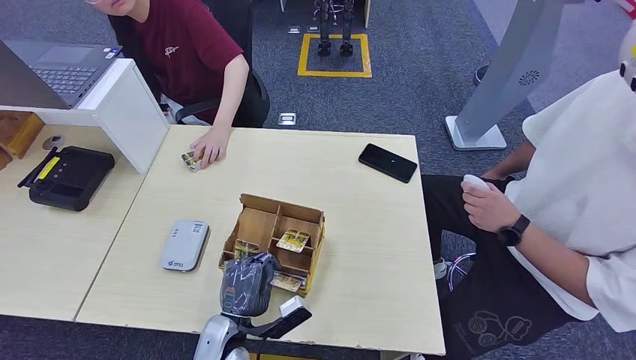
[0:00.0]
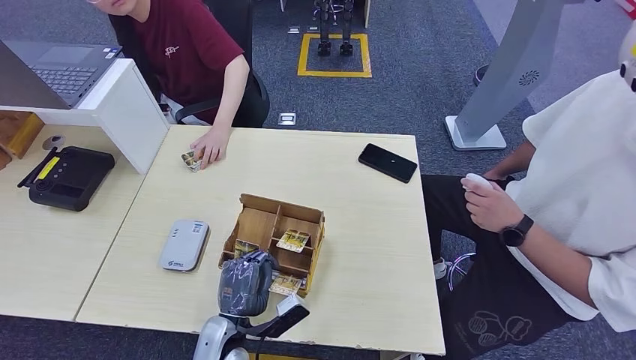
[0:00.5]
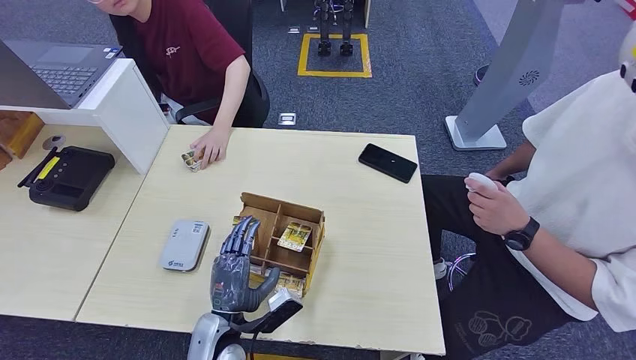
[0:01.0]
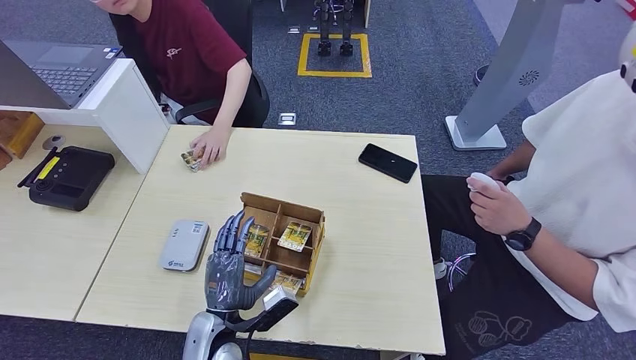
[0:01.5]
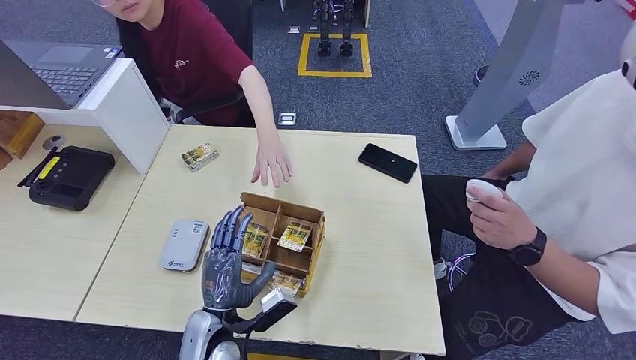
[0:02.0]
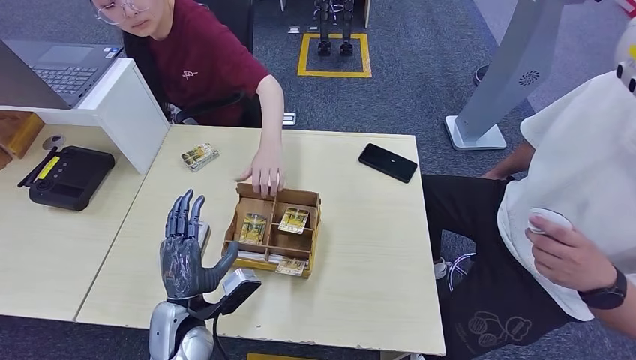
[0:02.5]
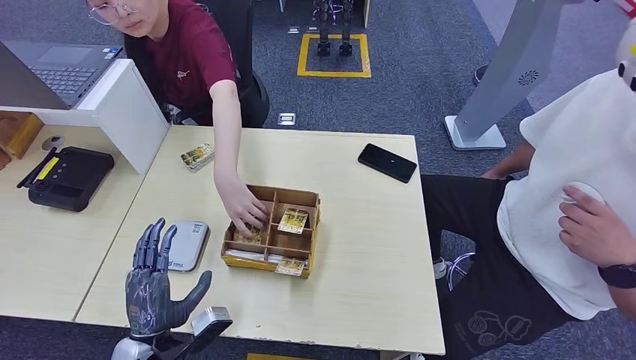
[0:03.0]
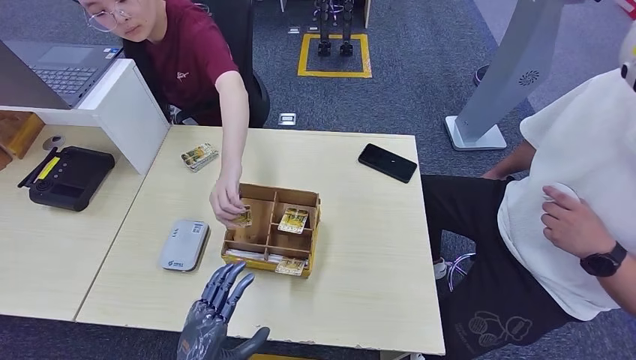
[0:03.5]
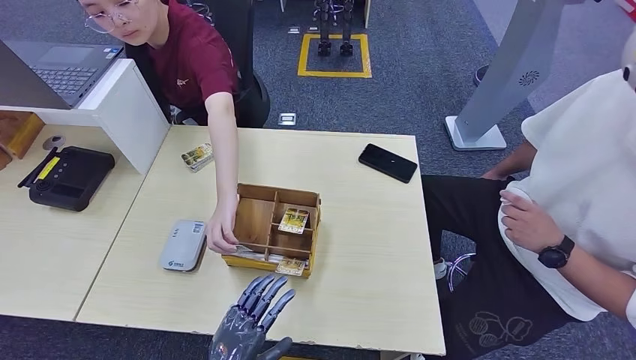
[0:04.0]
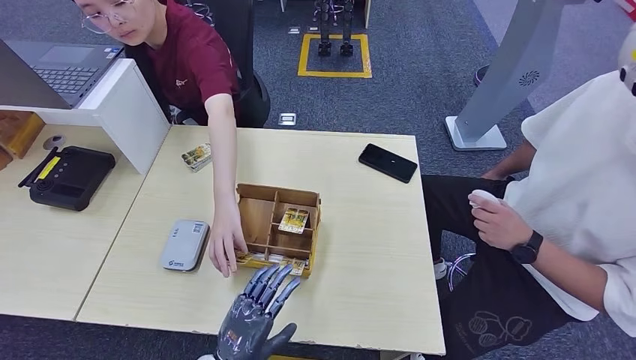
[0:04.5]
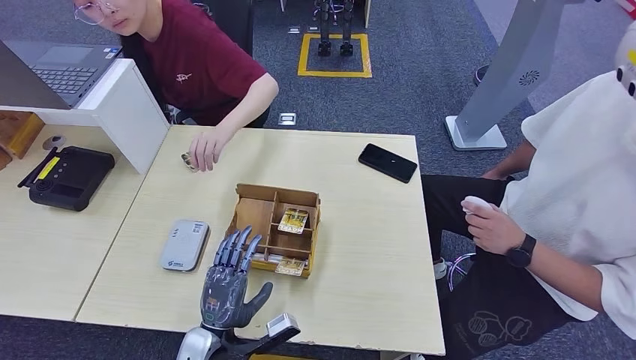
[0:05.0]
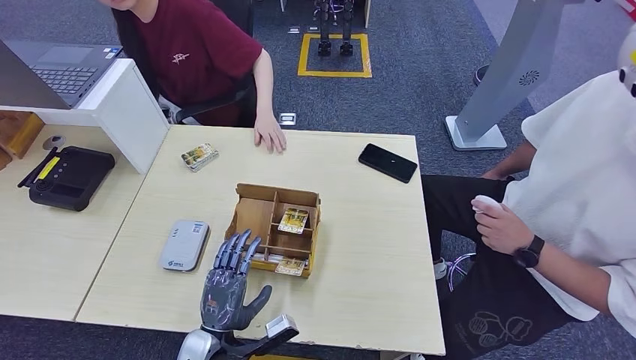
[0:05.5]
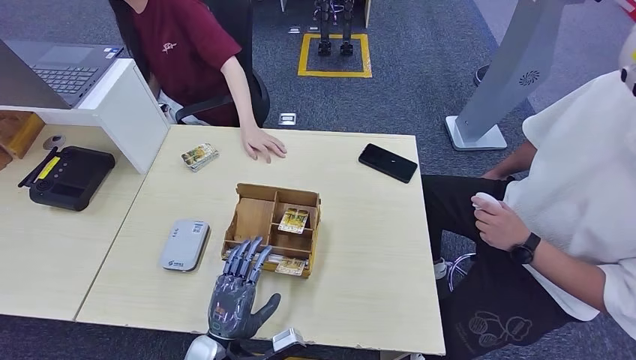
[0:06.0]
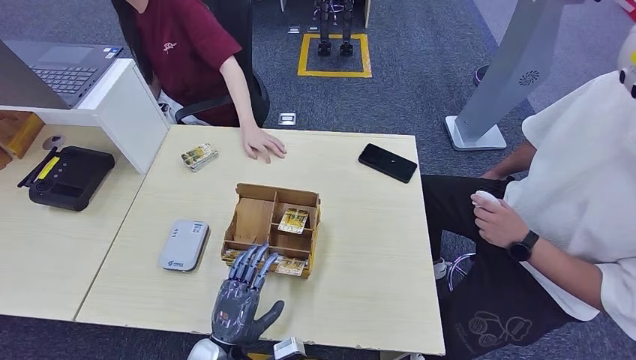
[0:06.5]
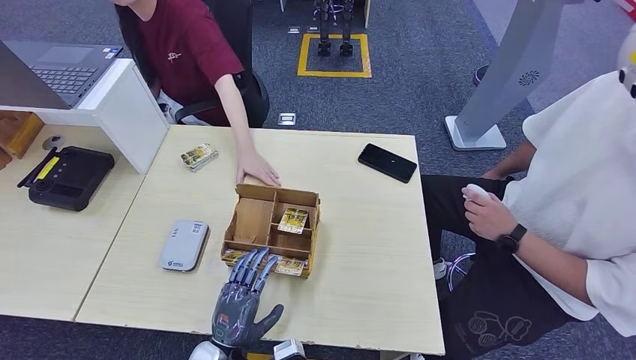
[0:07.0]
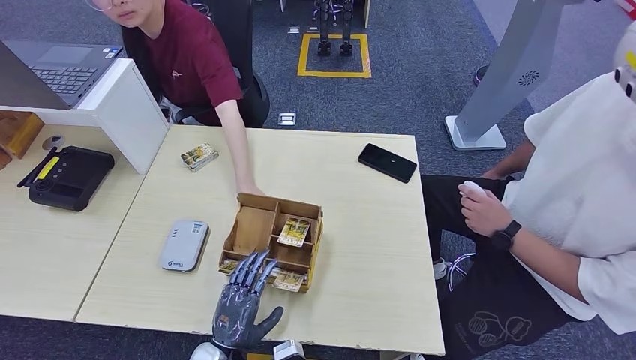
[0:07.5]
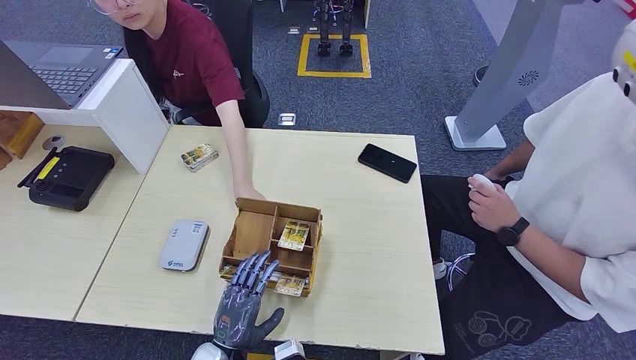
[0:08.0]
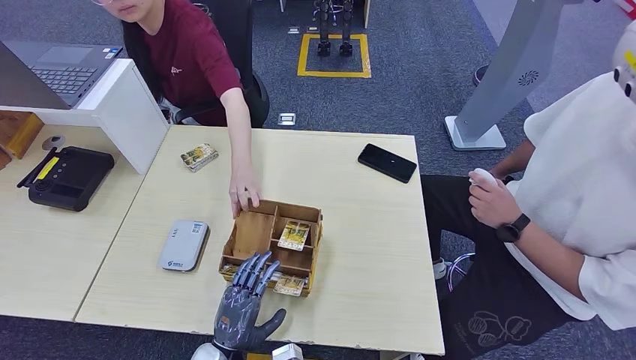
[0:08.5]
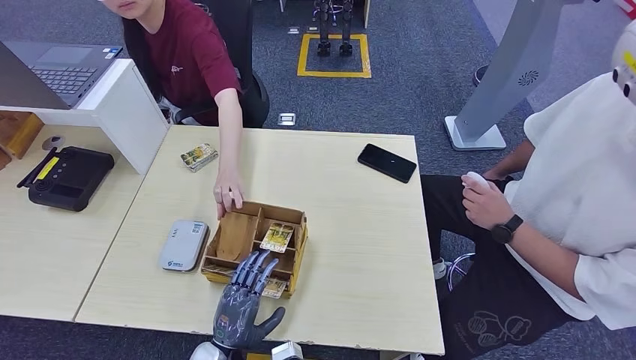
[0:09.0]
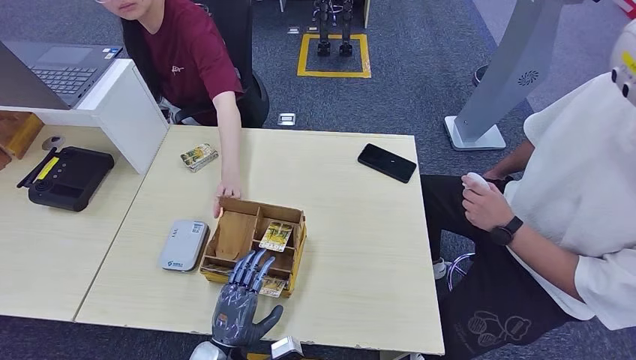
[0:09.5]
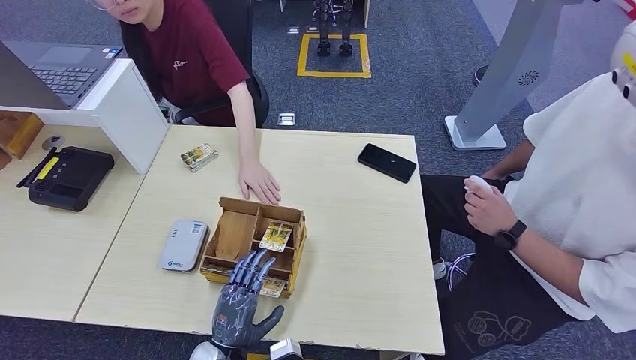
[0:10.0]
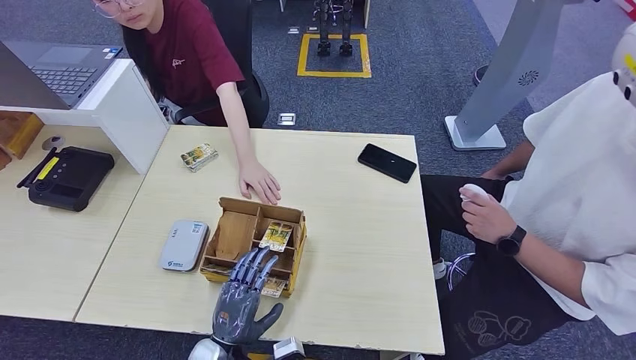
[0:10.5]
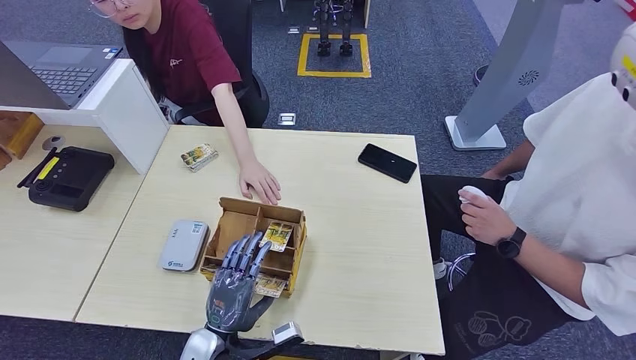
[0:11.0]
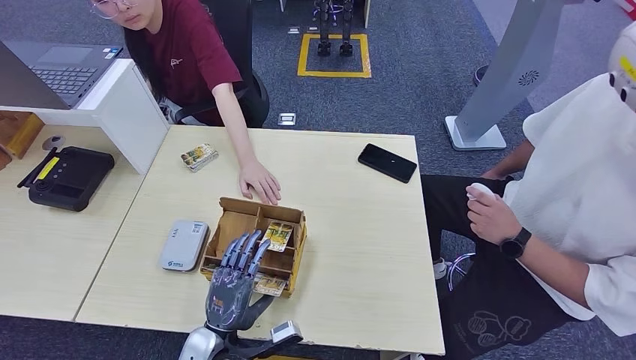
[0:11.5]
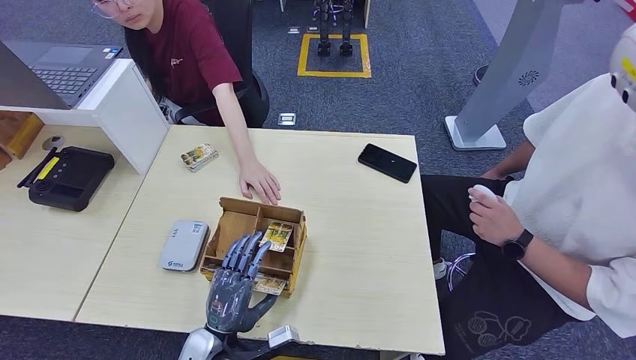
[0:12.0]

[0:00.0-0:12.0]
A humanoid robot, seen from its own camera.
0:00.0 to 0:02.0: The hands make only small movements.
0:02.0 to 0:04.0: The left hand travels backward by some 10 cm.
0:04.0 to 0:06.0: The left hand heads forward, covering some 5 cm.
0:06.0 to 0:08.0: The hands make only small movements.
0:08.0 to 0:10.0: The two hands keep their place.
0:10.0 to 0:12.0: The hands make only small movements.

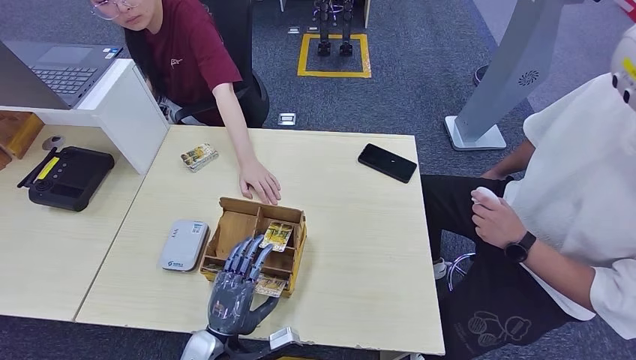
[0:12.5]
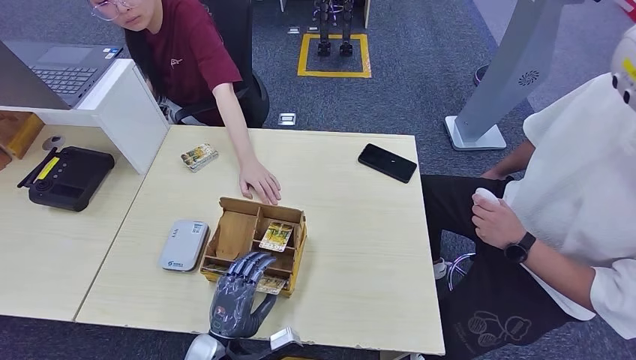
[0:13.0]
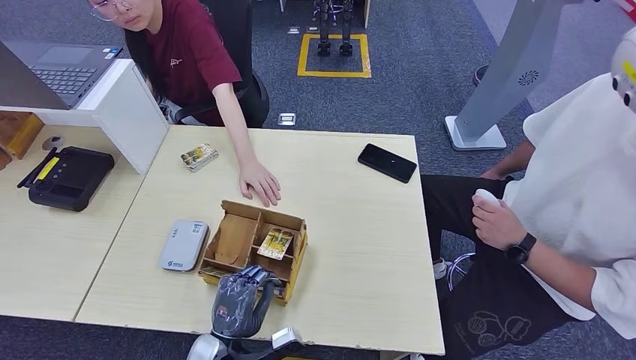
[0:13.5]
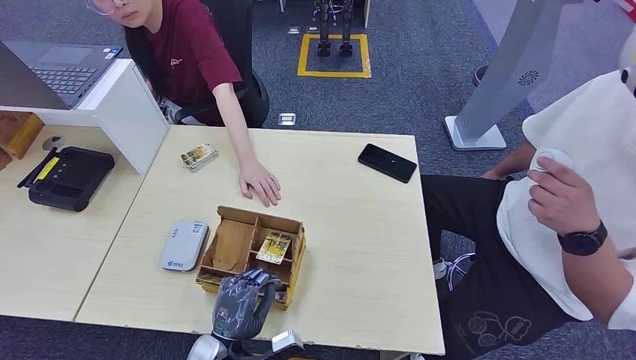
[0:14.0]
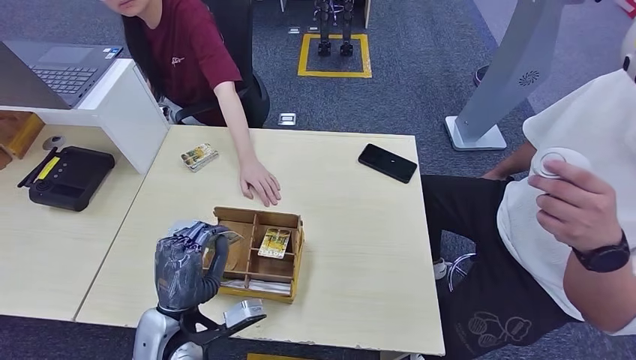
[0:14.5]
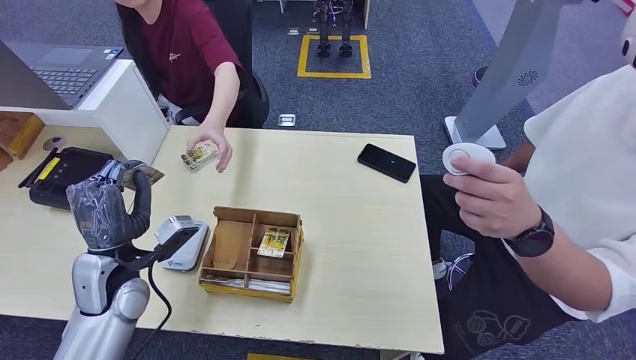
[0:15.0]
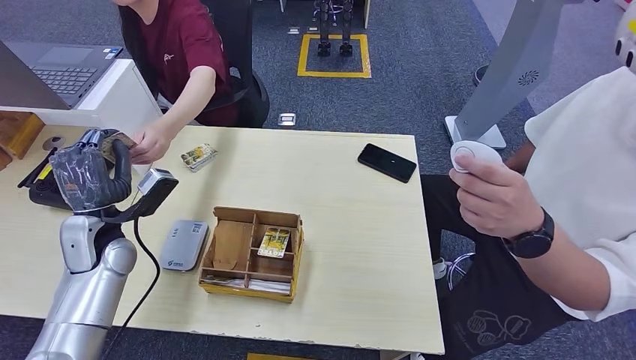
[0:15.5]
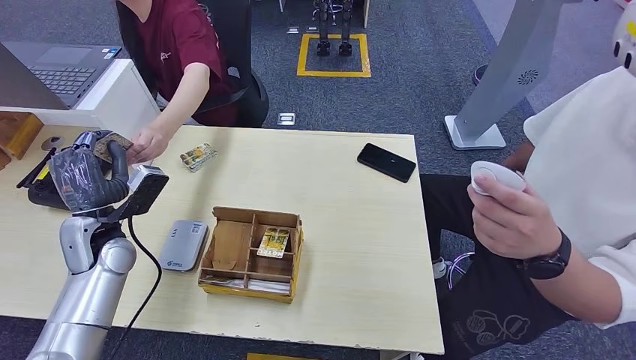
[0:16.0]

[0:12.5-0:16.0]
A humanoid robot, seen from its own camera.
Step, 0:12.5 to 0:14.5: Pick up the room key from the key card box.
Step, 0:15.0 to 0:16.0: Hand the room key to the person.
0:12.5 to 0:14.5: The left hand shifts approximately 10 cm upward.
